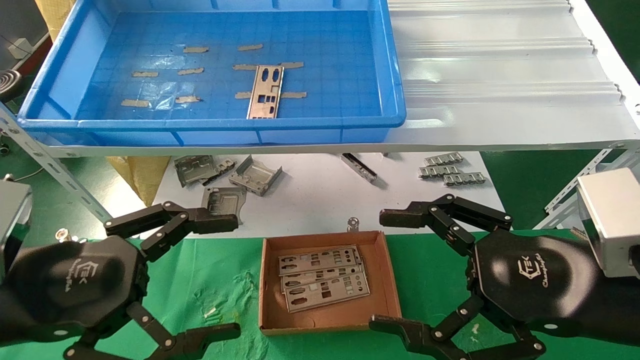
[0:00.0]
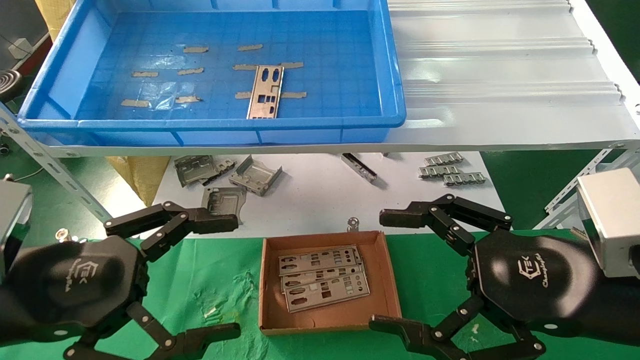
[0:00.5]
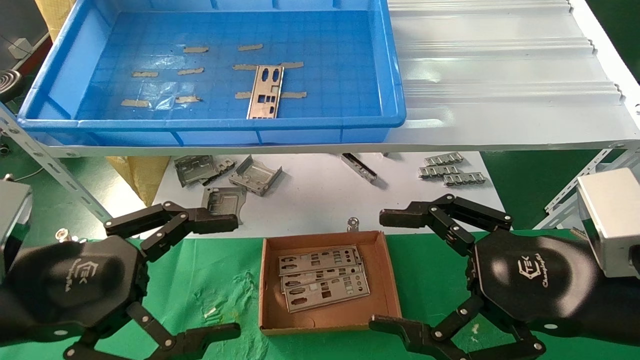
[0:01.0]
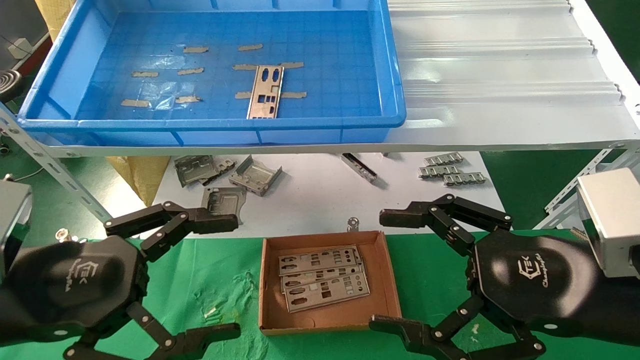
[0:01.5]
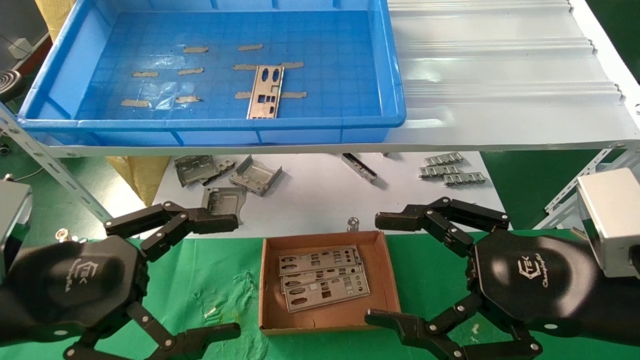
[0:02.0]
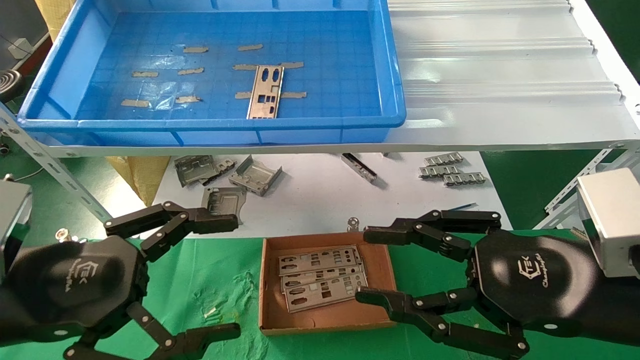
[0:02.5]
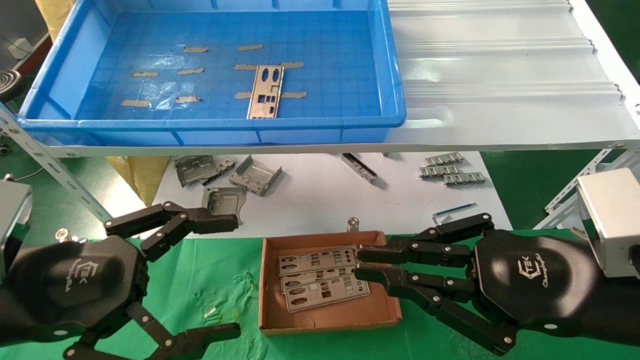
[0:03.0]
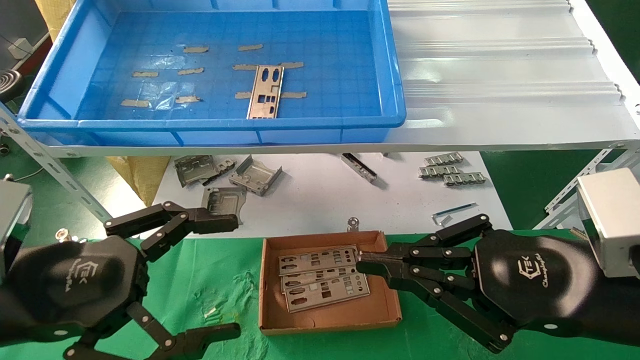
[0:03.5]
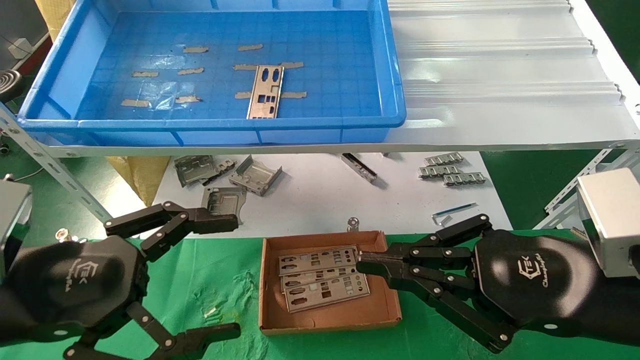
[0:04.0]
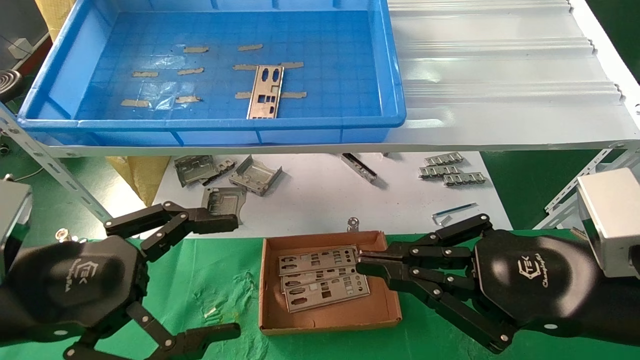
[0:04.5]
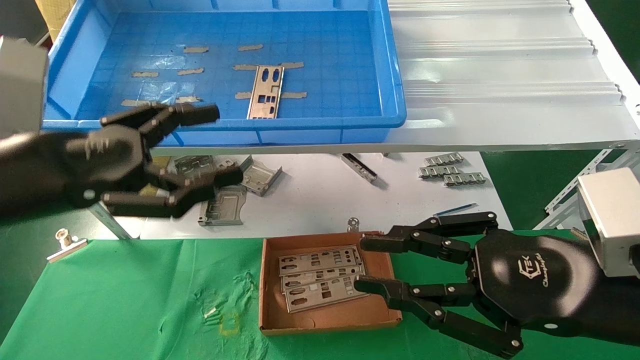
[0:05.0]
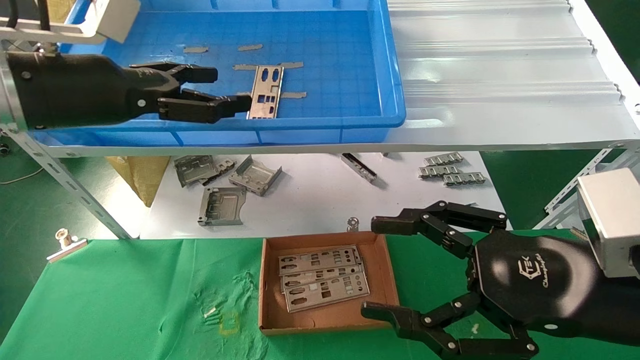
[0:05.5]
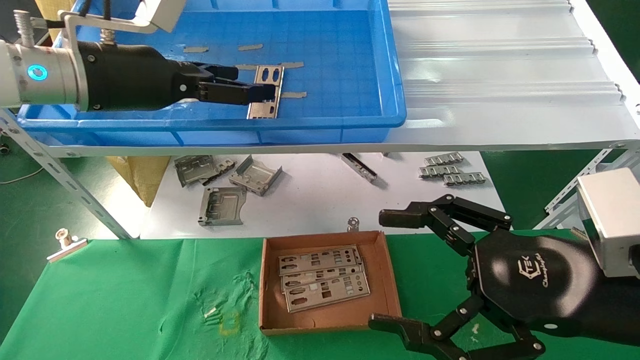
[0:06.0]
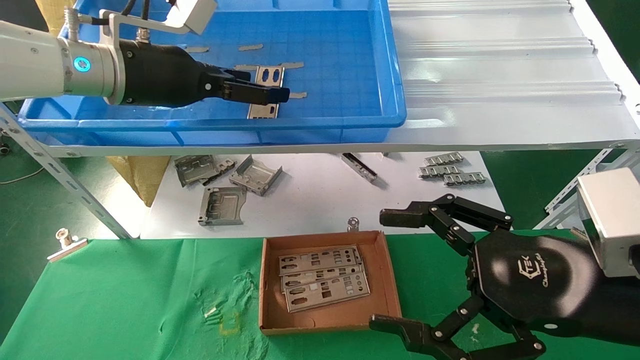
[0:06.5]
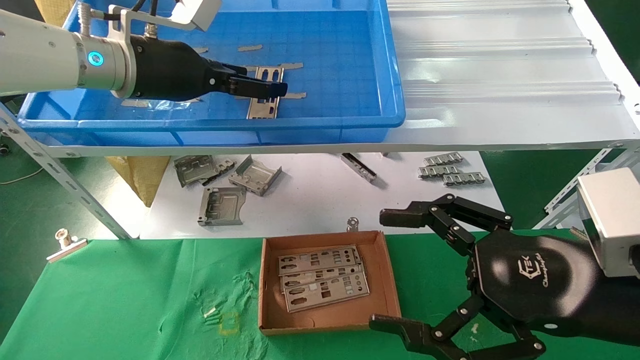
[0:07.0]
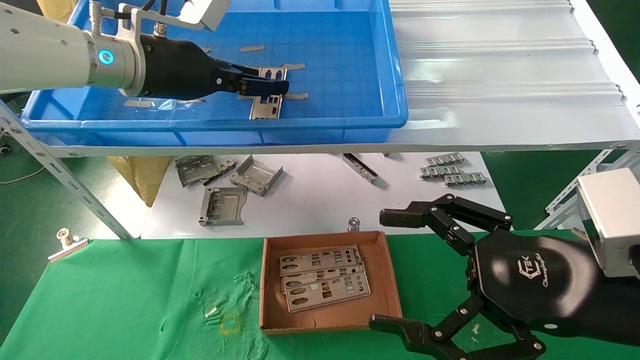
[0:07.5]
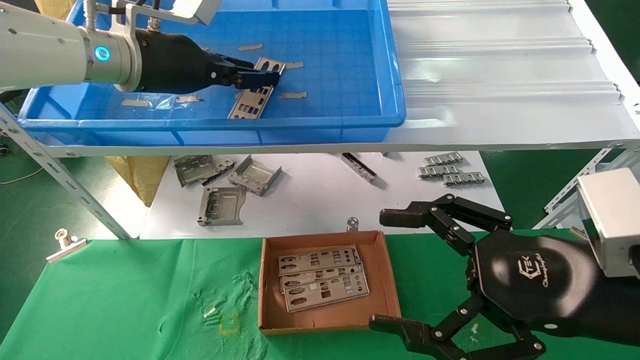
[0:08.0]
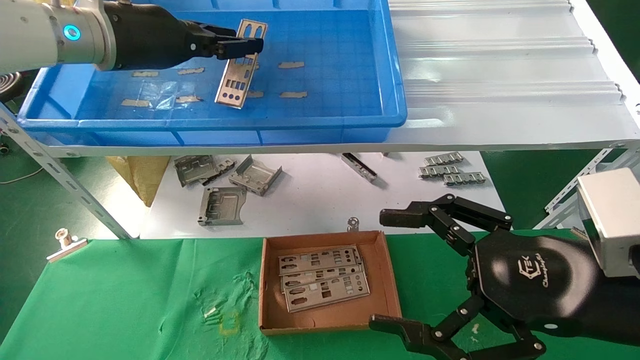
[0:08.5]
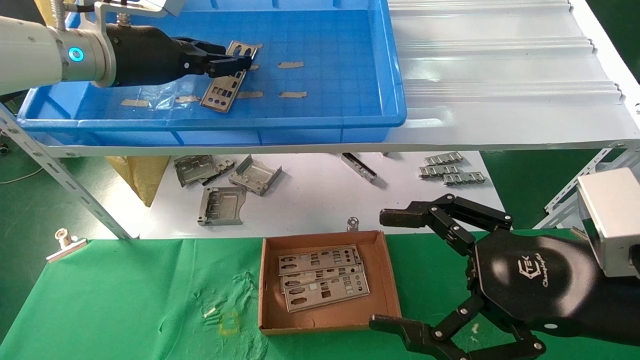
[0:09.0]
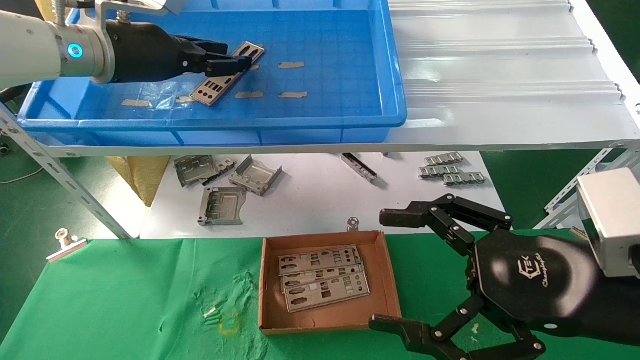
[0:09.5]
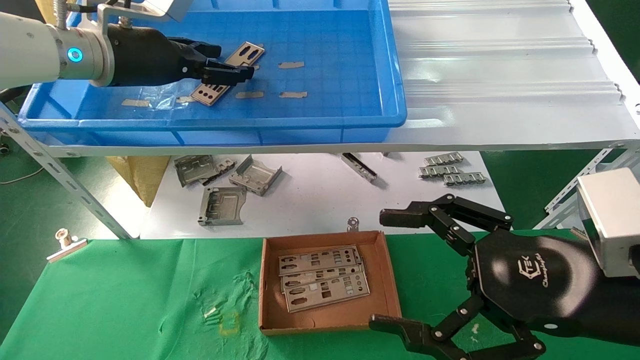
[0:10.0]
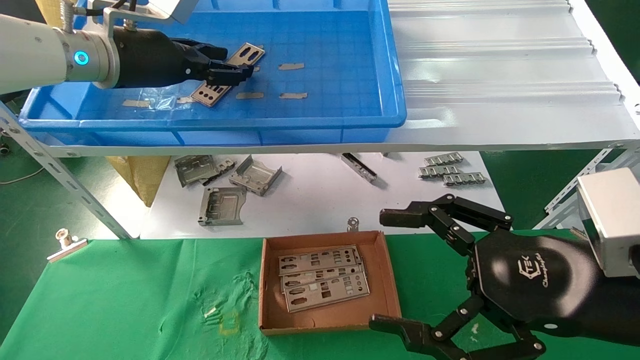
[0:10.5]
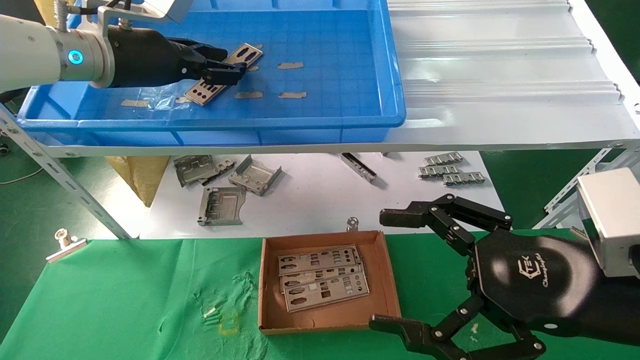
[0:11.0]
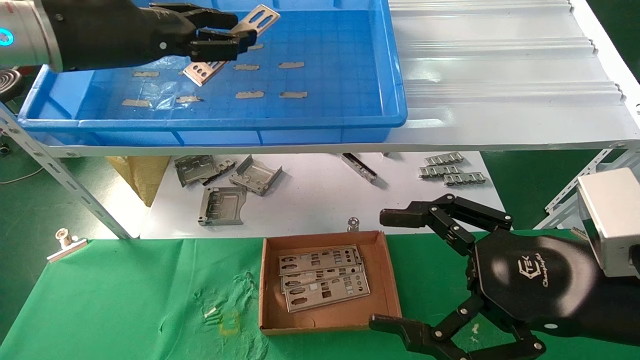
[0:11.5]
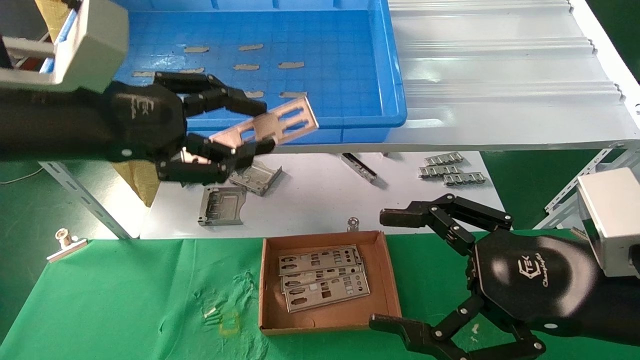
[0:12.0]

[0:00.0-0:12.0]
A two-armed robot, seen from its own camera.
Task of the whole recording: pick up the parts on the tray and put them in the cardboard box.
Step, 0:05.0 to 0:11.0: Pick up the IO bracket from the container box.
0:00.0 to 0:02.0: The two grippers keep their place.
0:02.0 to 0:04.0: The right gripper closes.
0:04.0 to 0:06.0: The right gripper opens. Meanwhile the left gripper goes some 25 cm forward and upward.
0:06.0 to 0:08.0: The left gripper ends up about 5 cm from where it was, and closes up.
0:08.0 to 0:10.0: The left gripper opens up.
0:10.0 to 0:12.0: The left gripper shifts some 15 cm backward, and closes.

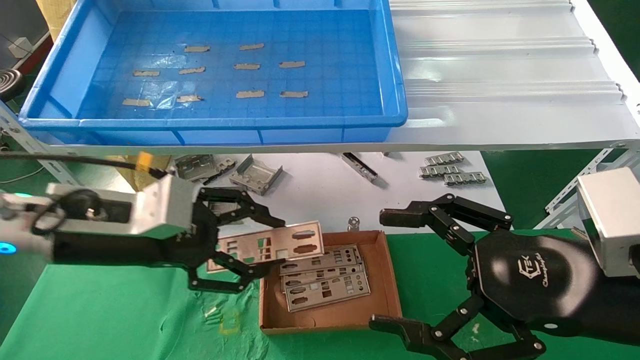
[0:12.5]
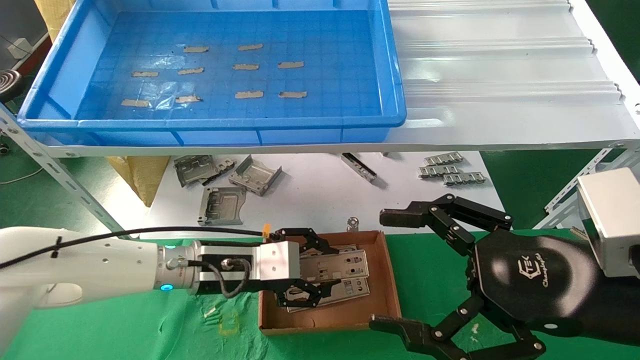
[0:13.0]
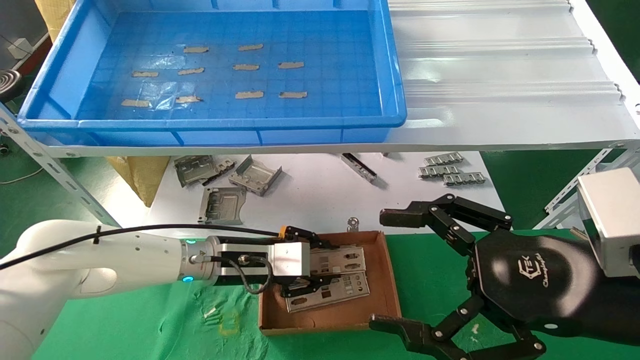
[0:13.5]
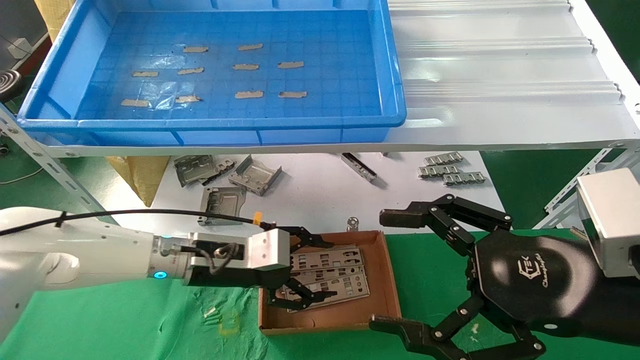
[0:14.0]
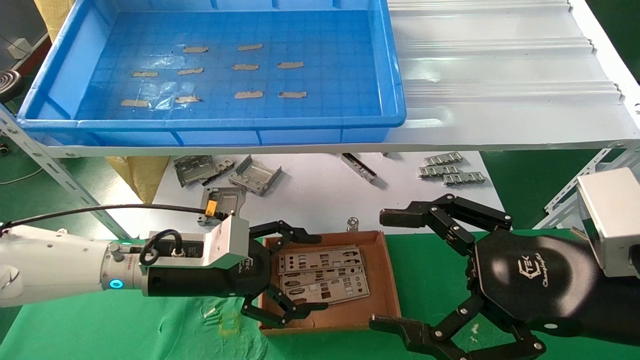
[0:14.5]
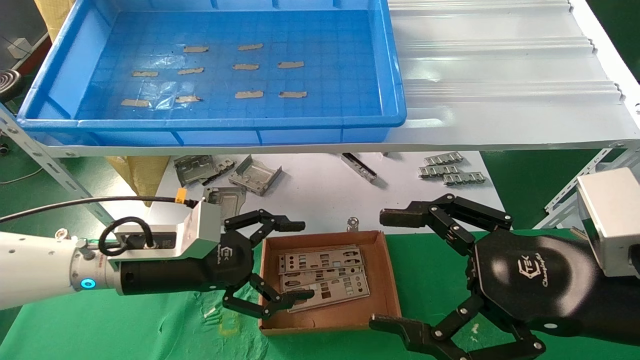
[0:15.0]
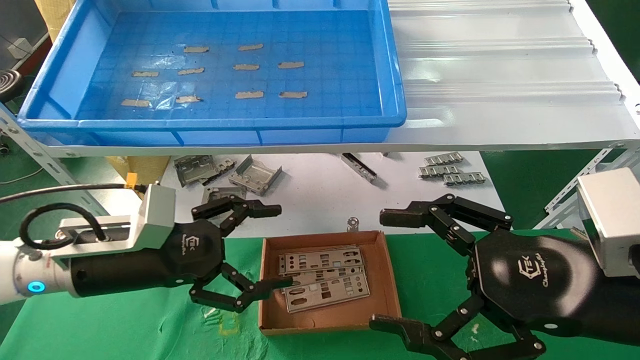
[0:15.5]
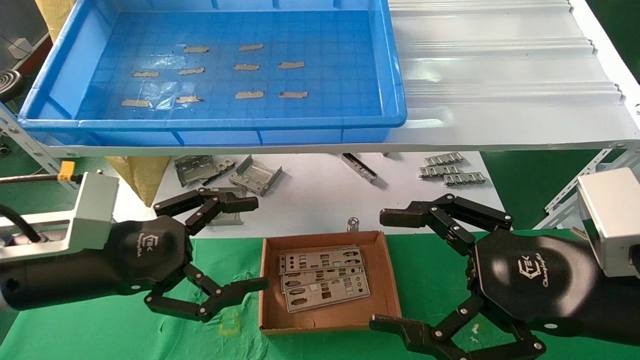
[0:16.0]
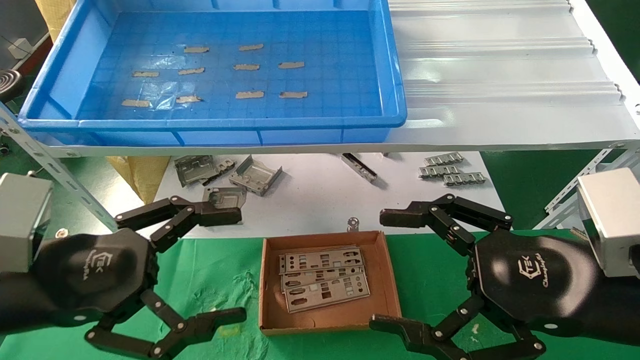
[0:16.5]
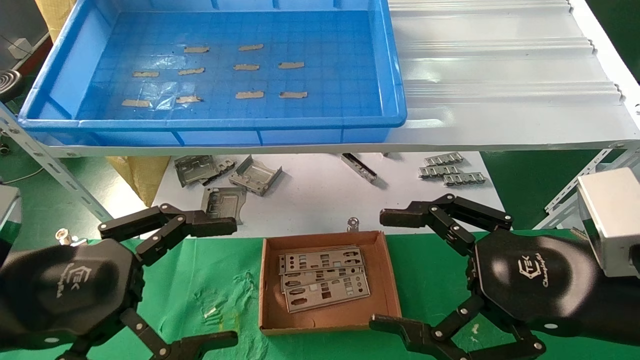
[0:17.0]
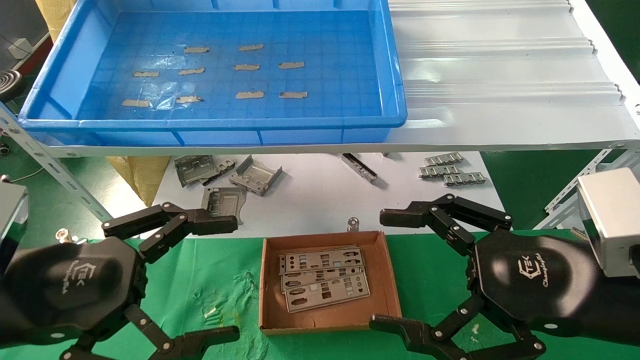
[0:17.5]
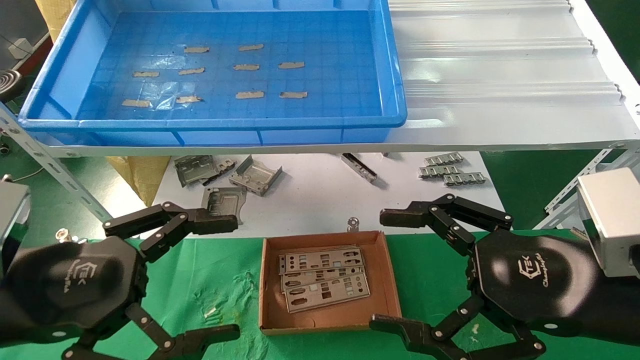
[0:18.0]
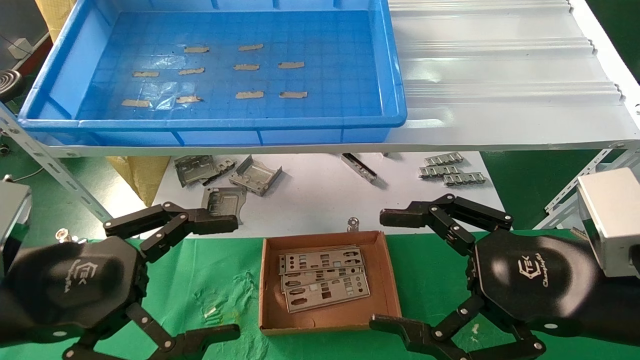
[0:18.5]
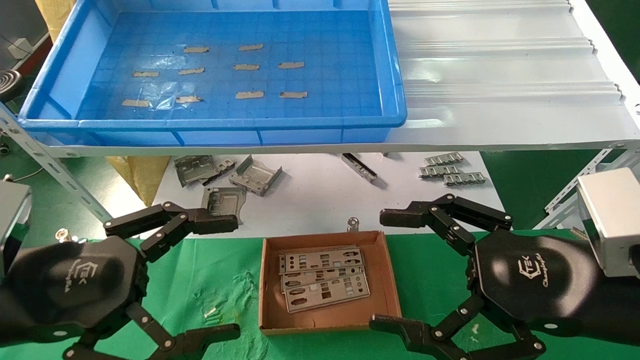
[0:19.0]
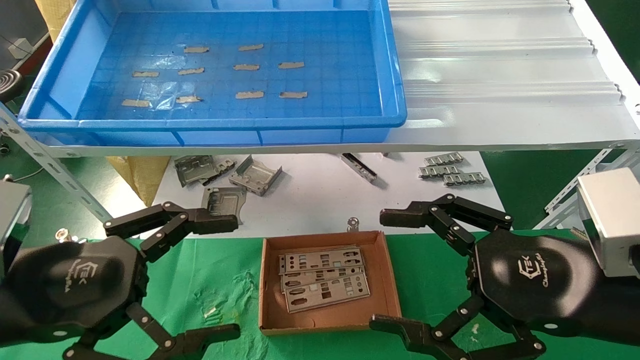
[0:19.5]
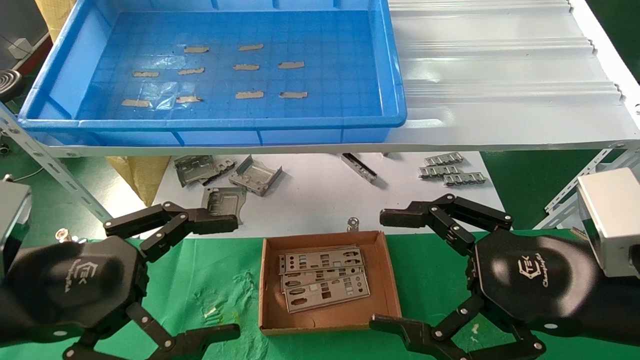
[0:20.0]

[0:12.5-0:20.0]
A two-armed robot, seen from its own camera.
Task of the whole recording: pick up the parts on the tray and put them in the cardboard box.
0:12.5 to 0:14.5: The left gripper is displaced downward and forward by some 10 cm, and opens up.
0:14.5 to 0:16.5: The left gripper heads backward, to the left and upward, covering approximately 20 cm.
0:16.5 to 0:18.0: The grippers make only small movements.
0:18.0 to 0:20.0: Neither gripper changes place.
